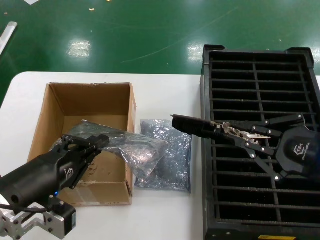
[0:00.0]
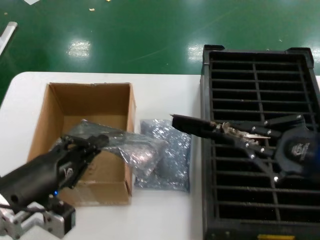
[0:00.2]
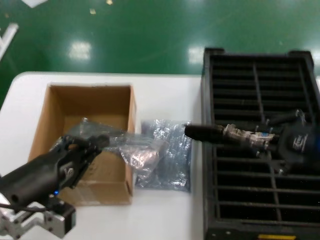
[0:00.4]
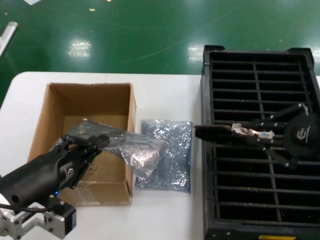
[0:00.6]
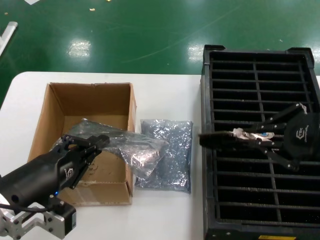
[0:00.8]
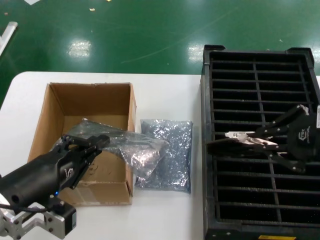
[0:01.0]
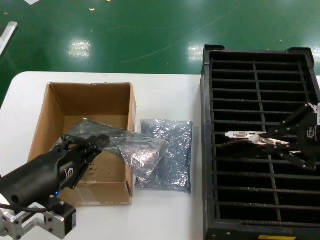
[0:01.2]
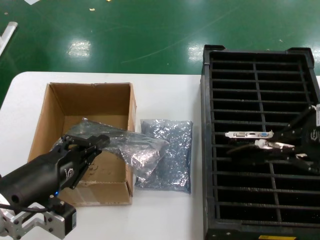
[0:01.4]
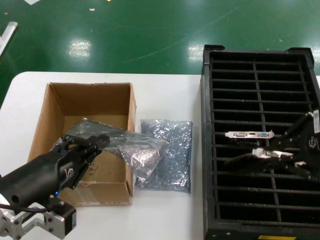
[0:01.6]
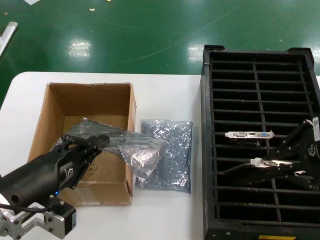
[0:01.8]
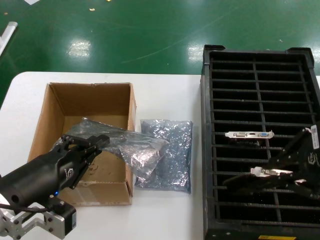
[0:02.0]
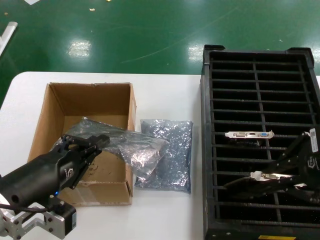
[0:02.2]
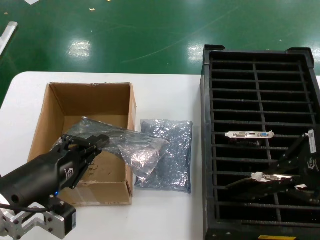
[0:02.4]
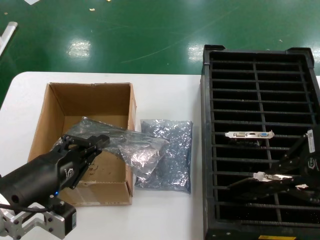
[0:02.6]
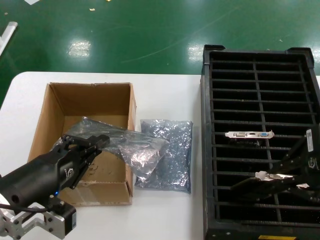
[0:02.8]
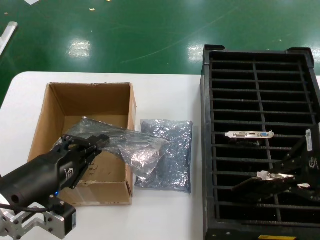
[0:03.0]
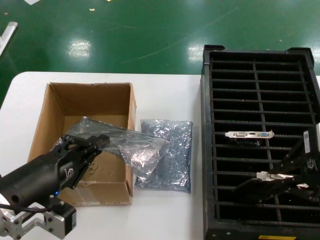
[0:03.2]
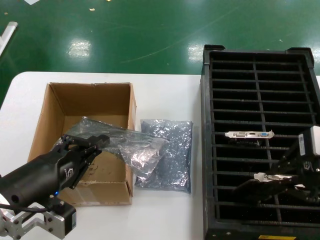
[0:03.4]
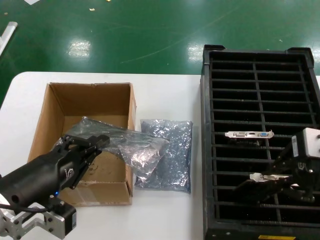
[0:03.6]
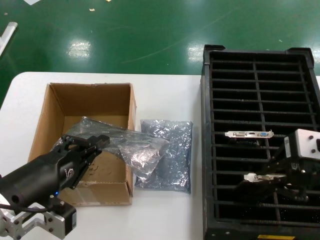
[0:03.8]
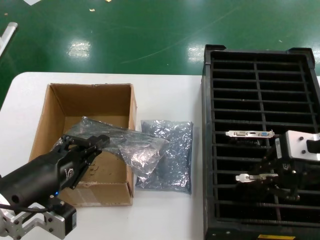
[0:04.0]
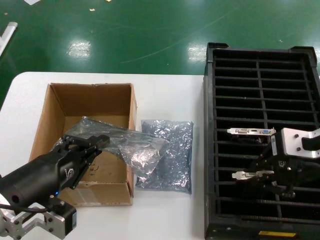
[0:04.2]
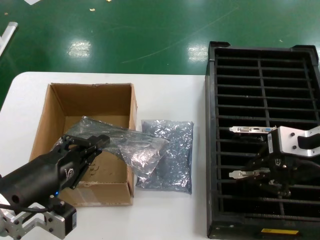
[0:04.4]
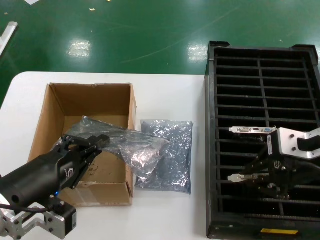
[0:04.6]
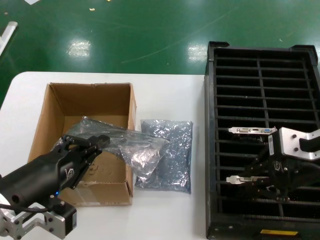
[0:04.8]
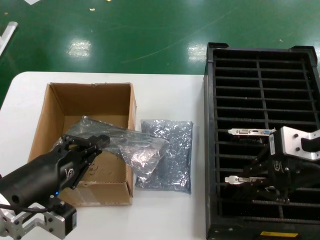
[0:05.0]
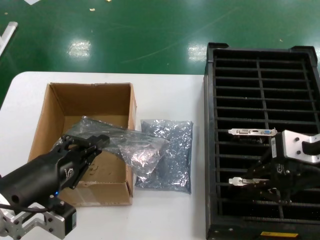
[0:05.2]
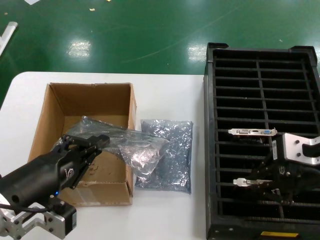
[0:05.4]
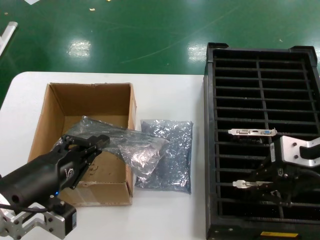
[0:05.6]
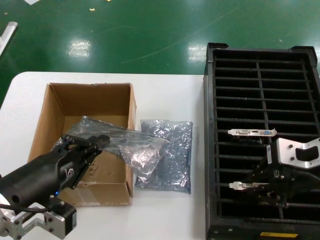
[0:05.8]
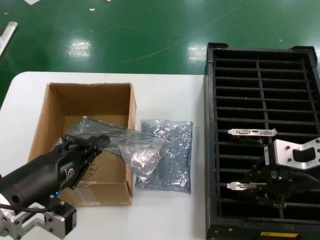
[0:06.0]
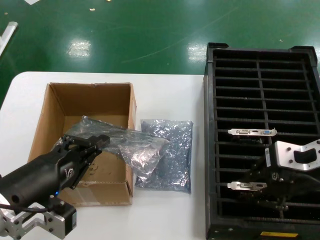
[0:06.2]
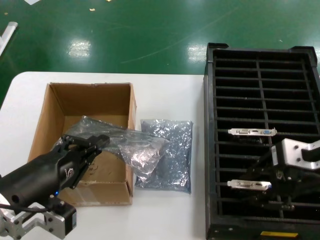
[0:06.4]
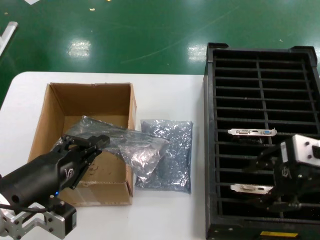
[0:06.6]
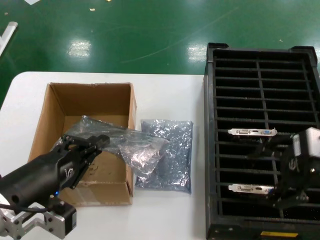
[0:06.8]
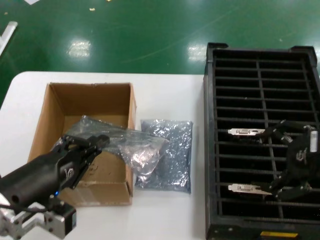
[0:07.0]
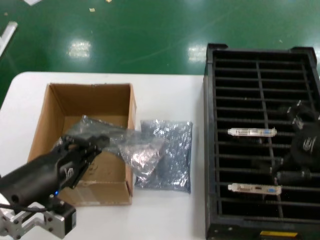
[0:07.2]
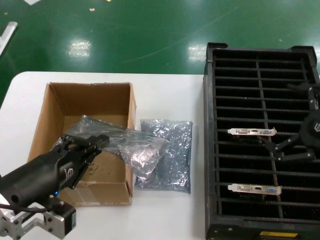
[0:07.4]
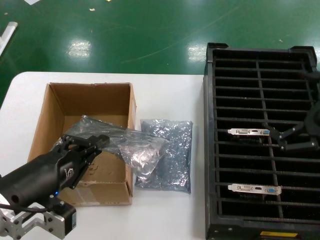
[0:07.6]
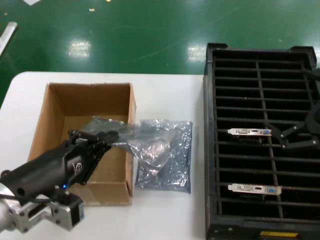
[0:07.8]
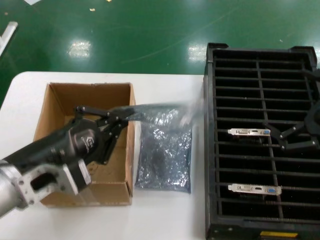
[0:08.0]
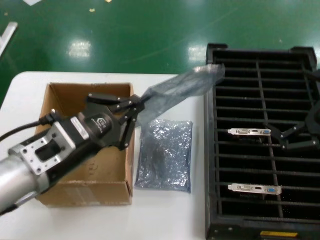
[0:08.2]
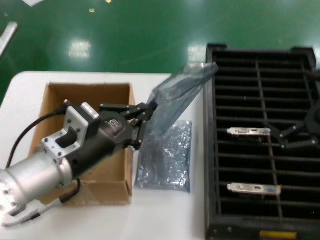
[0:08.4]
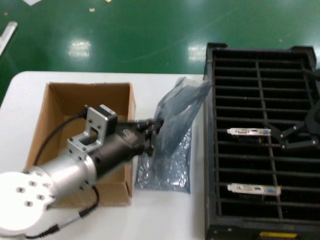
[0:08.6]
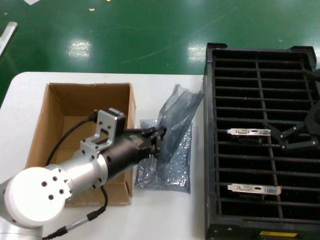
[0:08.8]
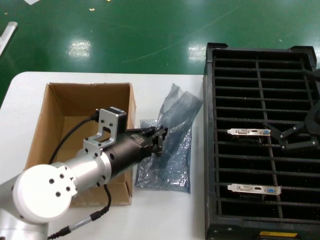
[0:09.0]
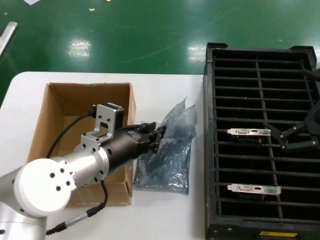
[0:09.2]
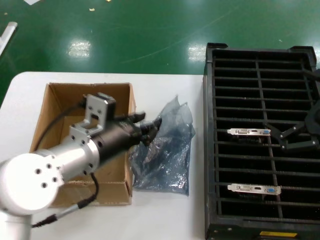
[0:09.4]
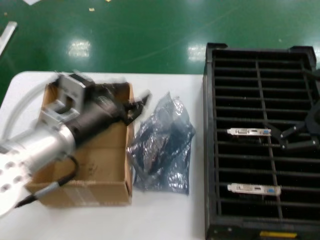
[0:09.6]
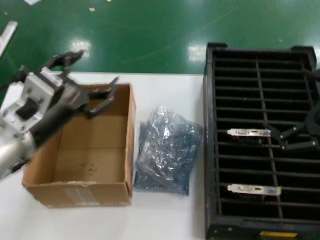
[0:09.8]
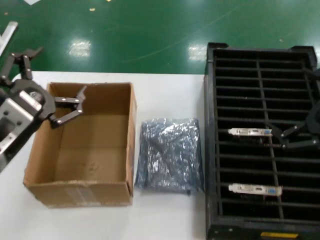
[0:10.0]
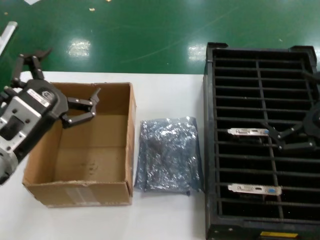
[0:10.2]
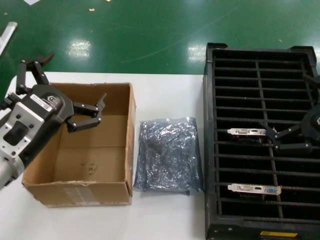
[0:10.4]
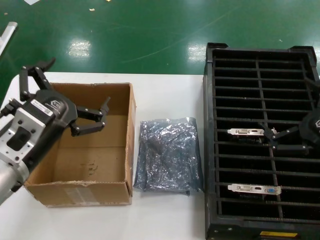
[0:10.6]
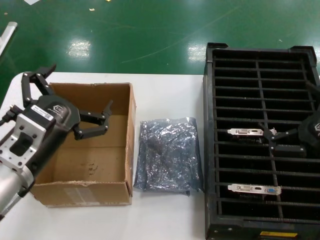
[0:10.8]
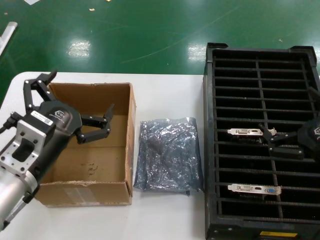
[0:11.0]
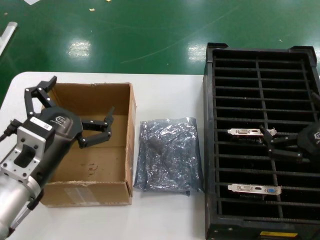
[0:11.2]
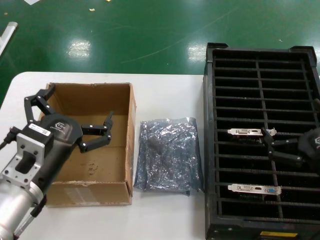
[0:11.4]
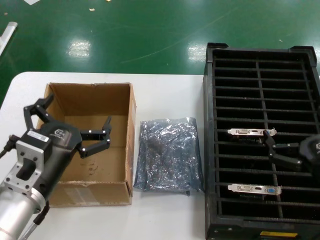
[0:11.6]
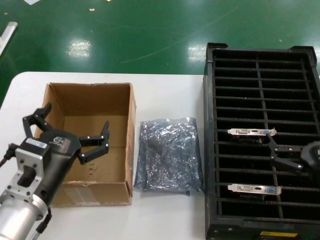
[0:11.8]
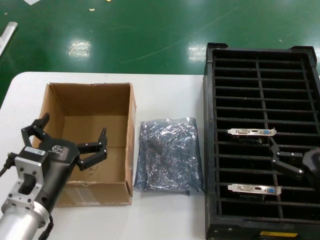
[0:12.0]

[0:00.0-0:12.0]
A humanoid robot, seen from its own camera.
Task of the whole recording: take out graphics card from box remove packaging put into black container.
Step, 0:00.0 to 0:07.0: Place the hard disk in the hard disk enclosure.
0:00.0 to 0:01.6: The right hand heads upward, covering some 10 cm.
0:01.6 to 0:03.0: The hands make only small movements.
0:03.0 to 0:04.4: The right hand shifts by roughly 5 cm.
0:04.4 to 0:06.0: There are only small adjustments of the hands.
0:06.0 to 0:07.6: The right hand goes some 10 cm to the right.
0:07.6 to 0:09.0: The left hand shifts about 15 cm forward and to the right.
0:09.0 to 0:10.4: The left hand is displaced backward, to the left and upward by about 15 cm.
0:10.4 to 0:12.0: The right hand travels downward and to the left by approximately 10 cm; the left hand shifts roughly 10 cm downward.

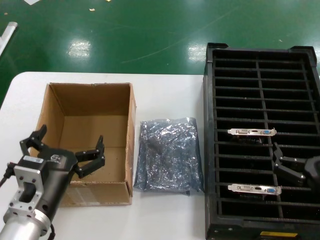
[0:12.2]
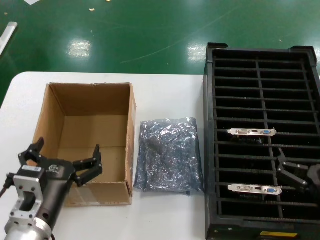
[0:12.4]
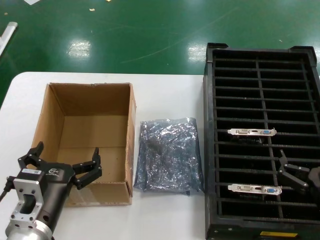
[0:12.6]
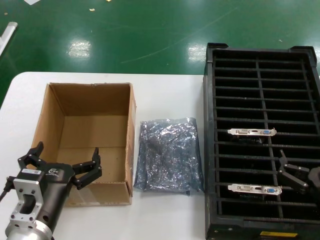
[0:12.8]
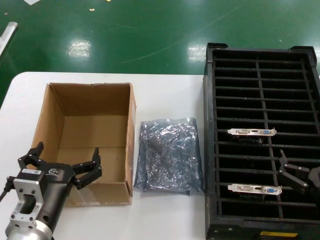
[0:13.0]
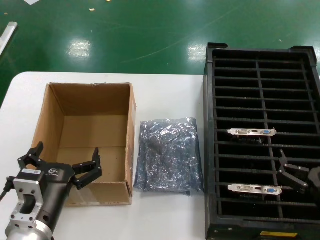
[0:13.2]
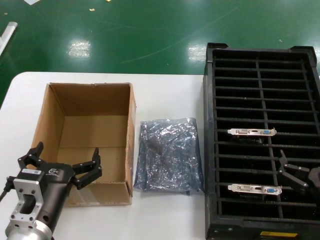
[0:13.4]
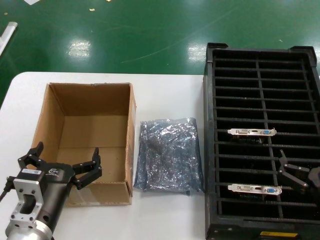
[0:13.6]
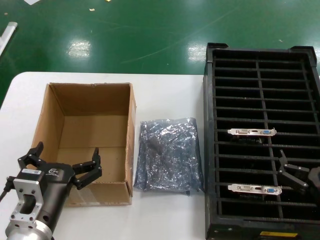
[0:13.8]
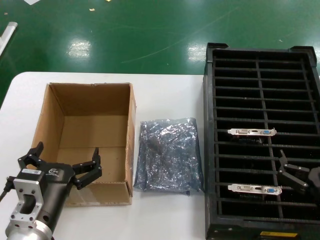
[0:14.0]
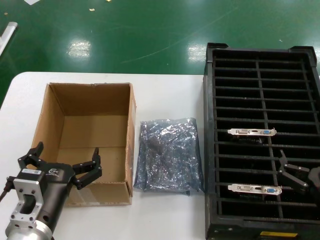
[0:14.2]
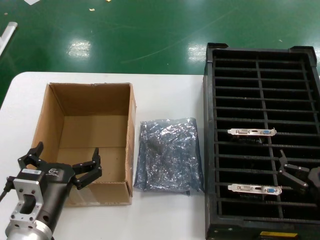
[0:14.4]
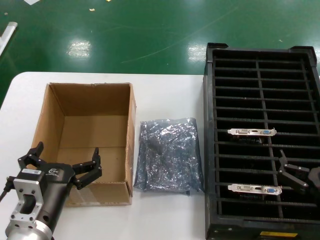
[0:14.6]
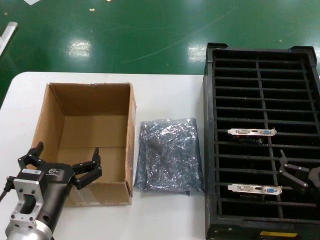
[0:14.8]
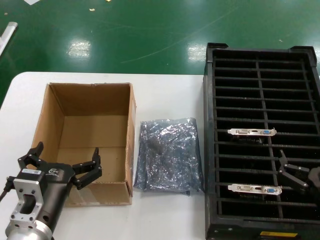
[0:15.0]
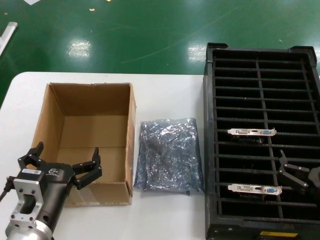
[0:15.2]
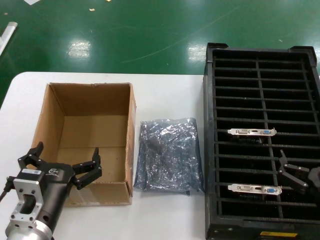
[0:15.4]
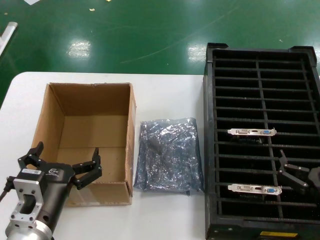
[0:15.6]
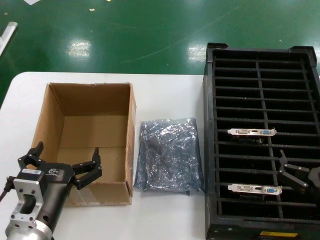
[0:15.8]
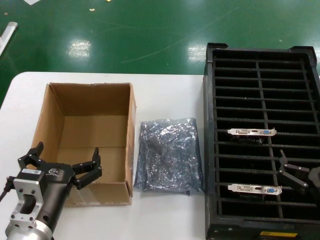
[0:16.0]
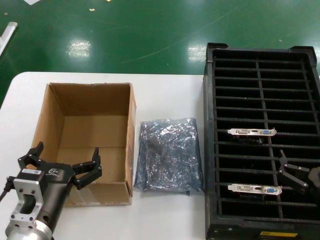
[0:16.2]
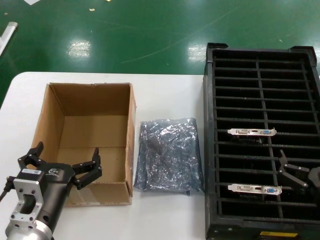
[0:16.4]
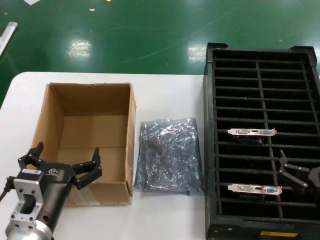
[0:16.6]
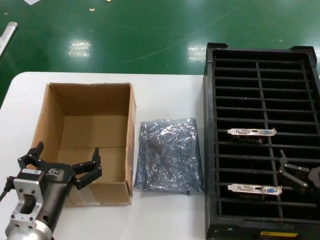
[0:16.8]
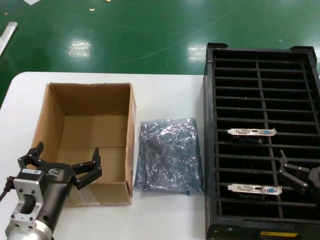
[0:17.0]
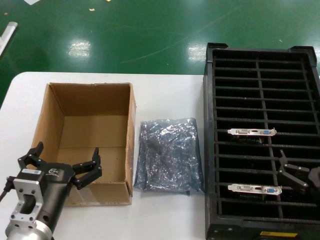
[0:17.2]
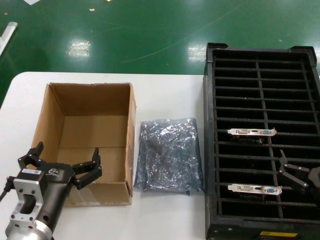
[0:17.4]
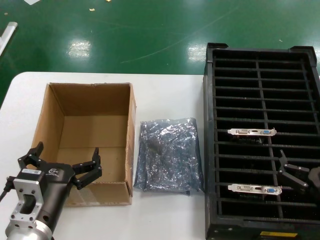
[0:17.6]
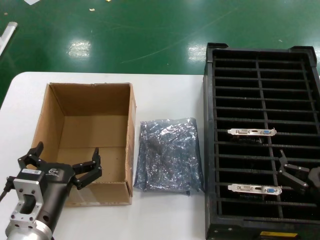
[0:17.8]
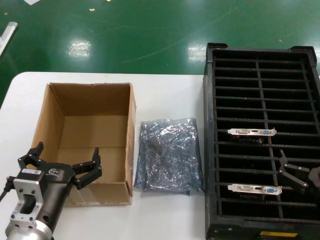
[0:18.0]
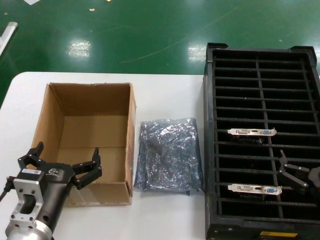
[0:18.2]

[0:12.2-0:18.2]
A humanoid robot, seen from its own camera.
Task of the whole recording: take out graphics card from box remove packaging put into black container.
0:12.2 to 0:13.8: The hands stay close to where they were, moving slightly.
0:13.8 to 0:18.2: Both hands stay put.
